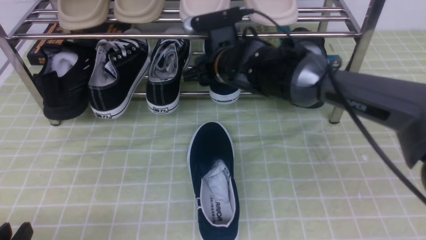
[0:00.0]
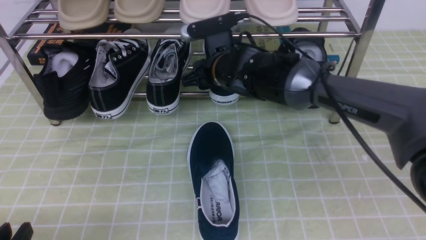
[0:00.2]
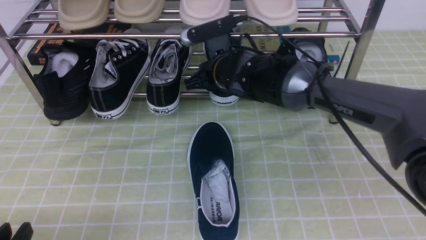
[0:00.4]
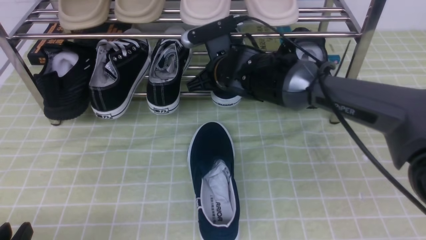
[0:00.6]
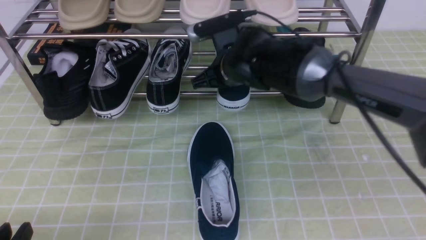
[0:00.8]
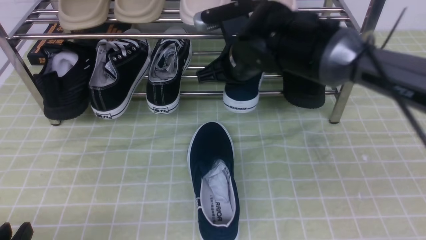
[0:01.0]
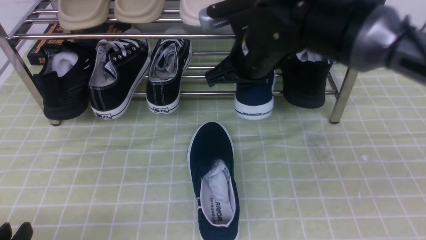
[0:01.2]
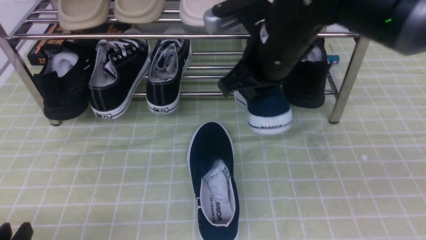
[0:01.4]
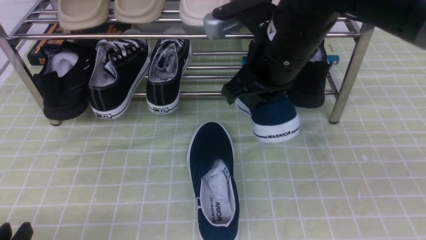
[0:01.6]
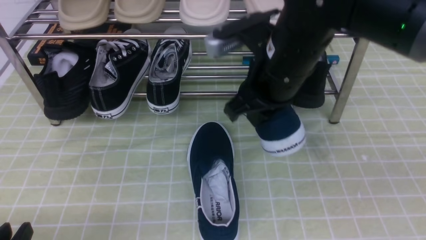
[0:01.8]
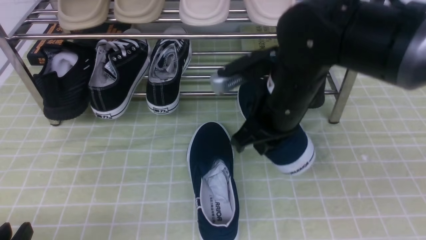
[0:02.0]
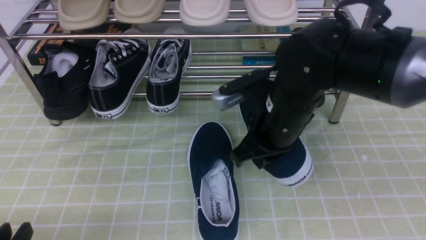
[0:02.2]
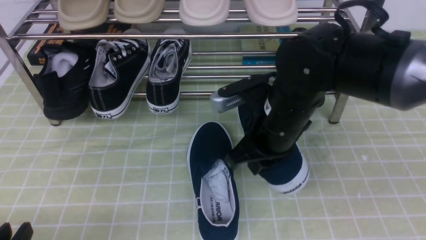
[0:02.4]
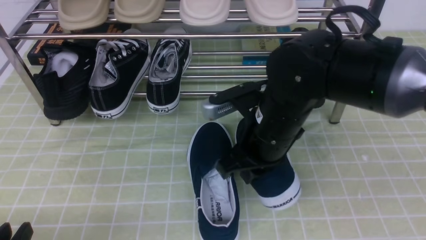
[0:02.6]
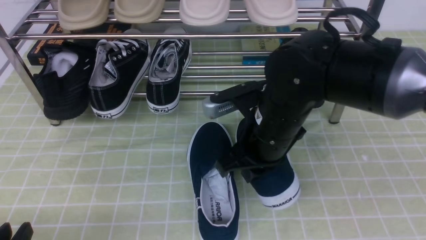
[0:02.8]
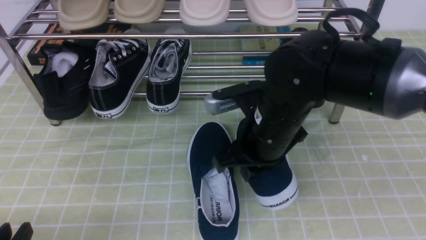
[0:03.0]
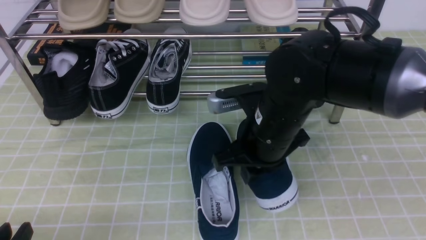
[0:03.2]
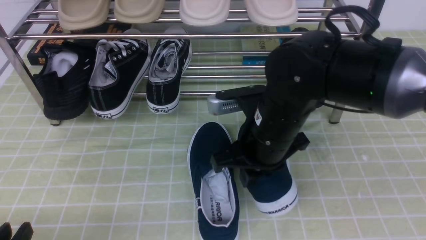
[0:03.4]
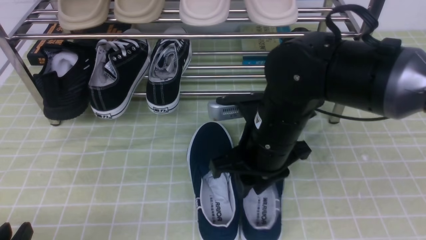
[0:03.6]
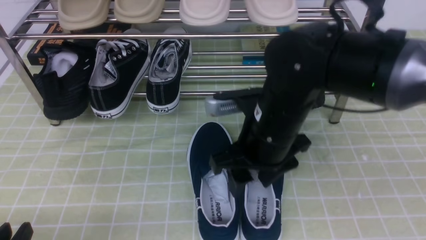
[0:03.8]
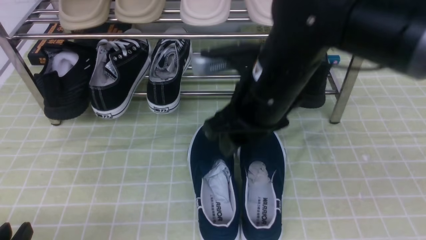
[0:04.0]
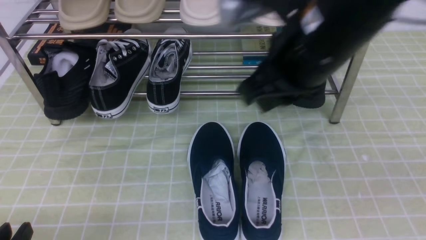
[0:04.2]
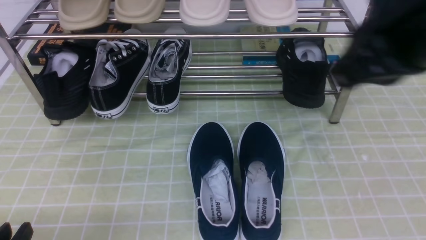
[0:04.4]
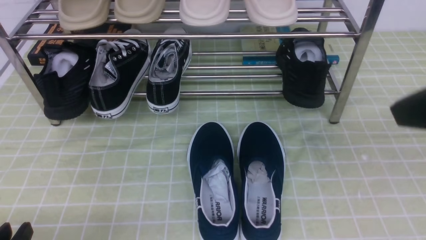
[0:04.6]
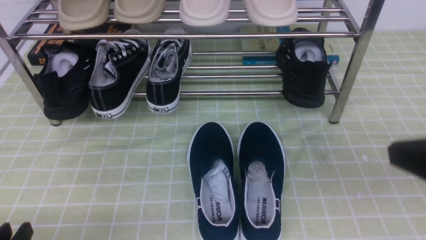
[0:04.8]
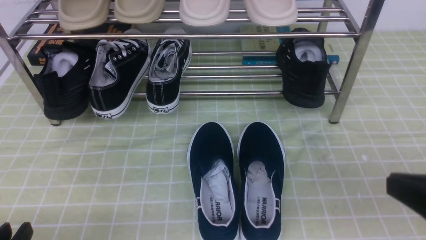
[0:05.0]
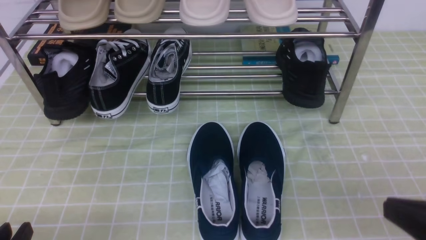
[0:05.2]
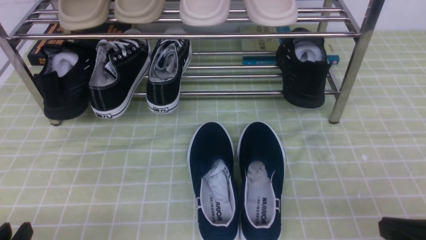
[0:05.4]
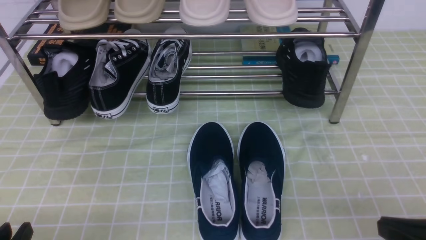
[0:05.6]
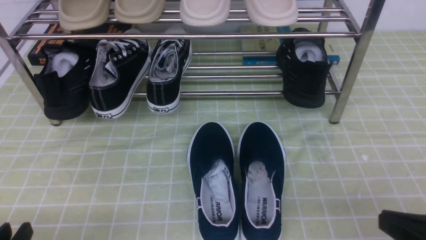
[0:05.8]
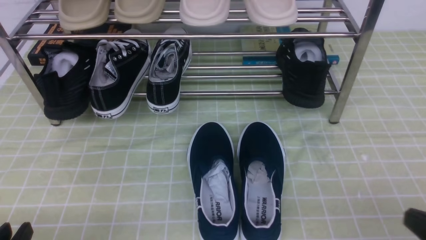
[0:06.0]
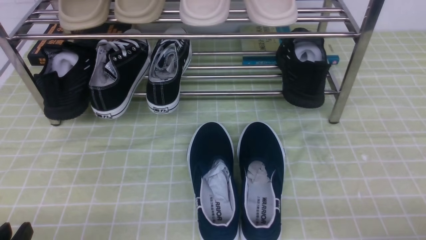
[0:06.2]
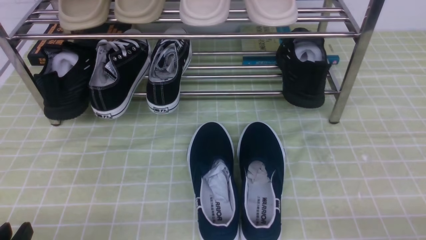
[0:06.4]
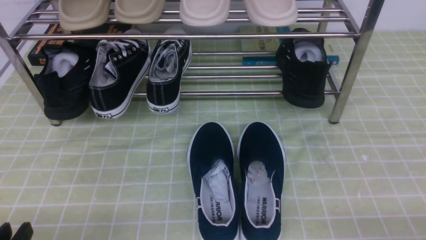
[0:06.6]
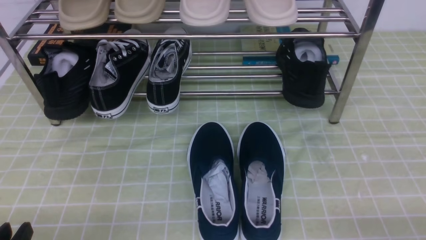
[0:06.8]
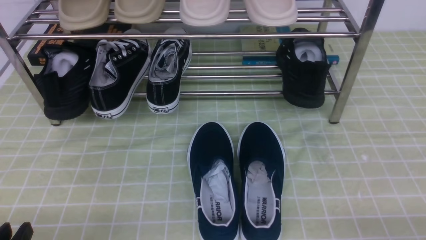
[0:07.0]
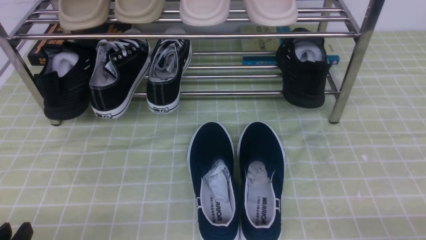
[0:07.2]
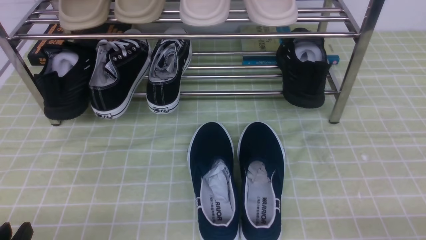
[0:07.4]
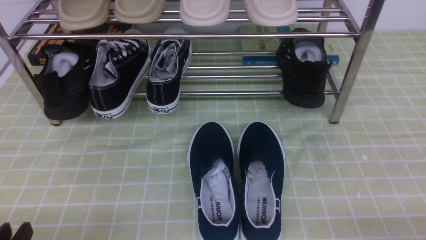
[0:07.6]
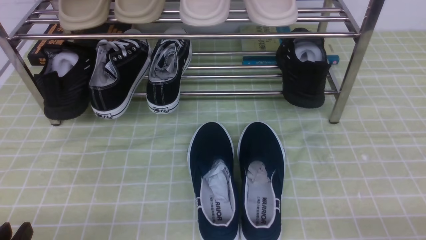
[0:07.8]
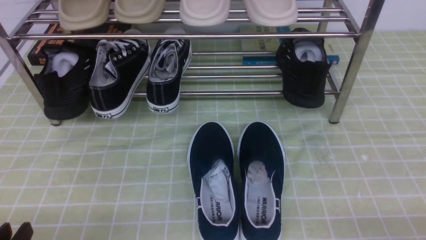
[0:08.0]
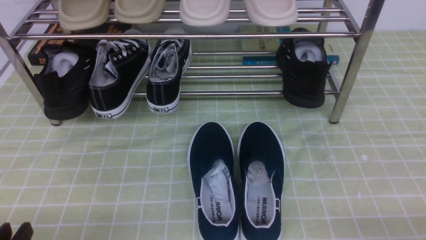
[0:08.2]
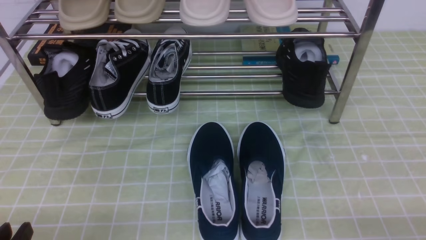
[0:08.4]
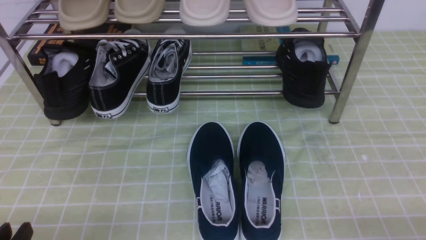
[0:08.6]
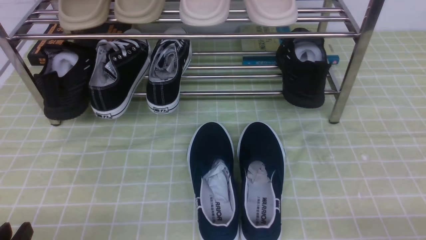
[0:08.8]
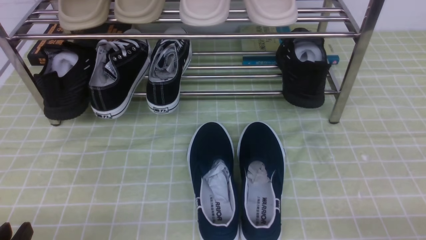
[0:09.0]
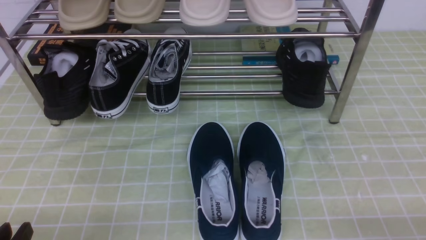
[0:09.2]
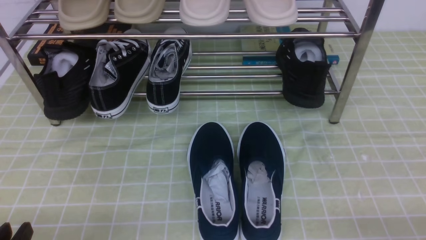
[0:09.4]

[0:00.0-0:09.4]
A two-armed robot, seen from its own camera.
Step, 0:01.0 to 0:04.2: use the right arm to take out the clamped shoe from the shoe rack and put it down.
0:00.0 to 0:01.6: The right gripper goes about 15 cm backward, upward and to the right, and closes up.
0:01.6 to 0:03.2: The right gripper shifts roughly 10 cm downward.
0:03.2 to 0:04.8: The right gripper goes some 25 cm to the right, backward and upward, and opens, then closes again.
0:04.8 to 0:06.2: The right gripper is displaced downward and to the right by some 20 cm.
0:07.8 to 0:09.4: Both grippers stay put.

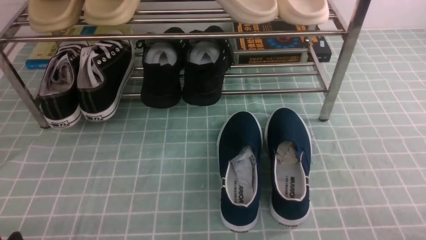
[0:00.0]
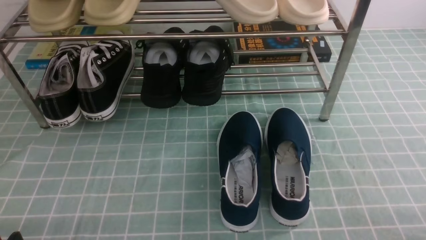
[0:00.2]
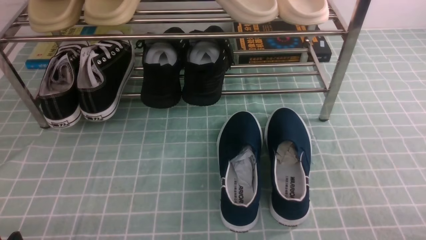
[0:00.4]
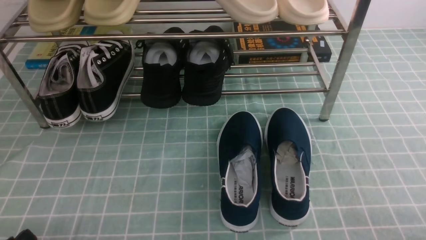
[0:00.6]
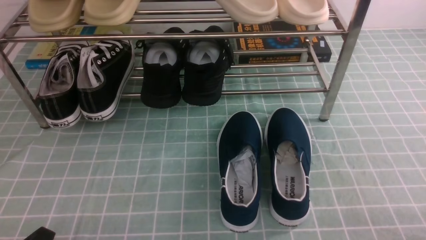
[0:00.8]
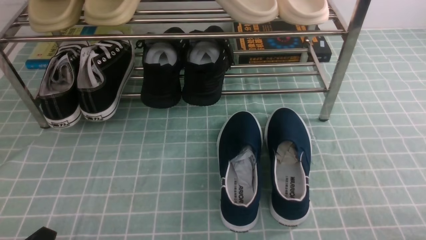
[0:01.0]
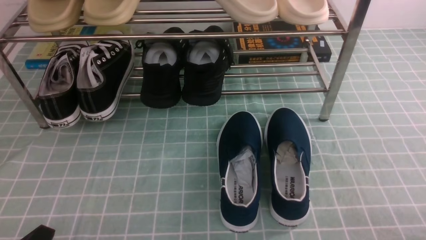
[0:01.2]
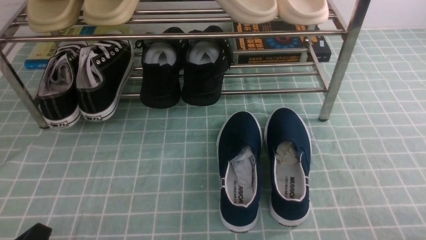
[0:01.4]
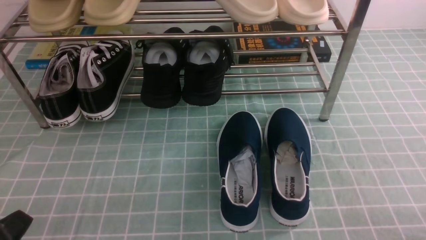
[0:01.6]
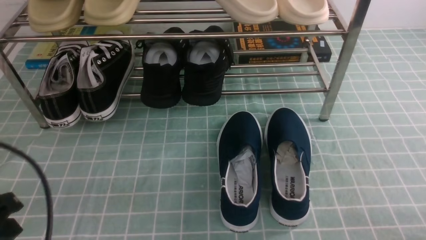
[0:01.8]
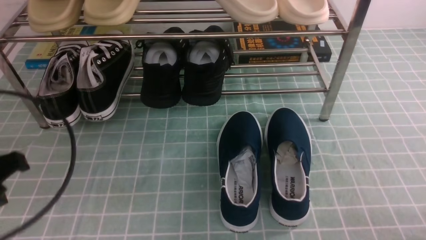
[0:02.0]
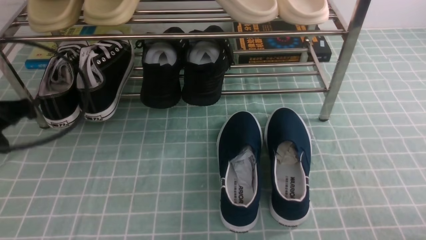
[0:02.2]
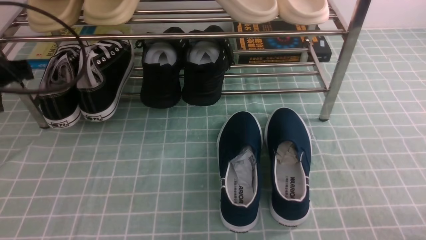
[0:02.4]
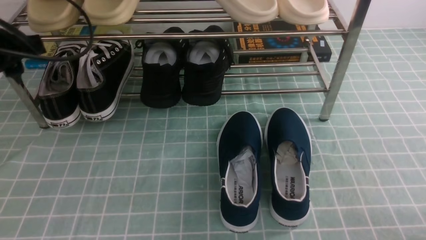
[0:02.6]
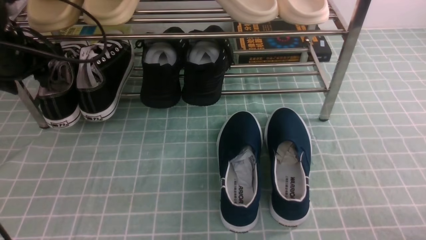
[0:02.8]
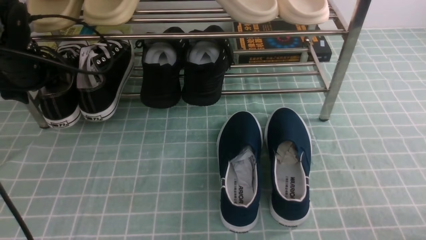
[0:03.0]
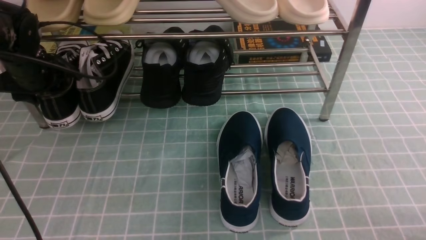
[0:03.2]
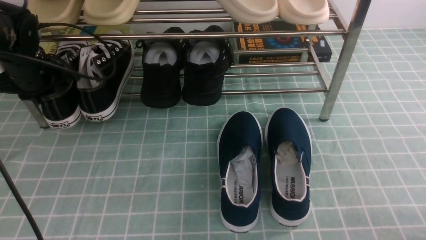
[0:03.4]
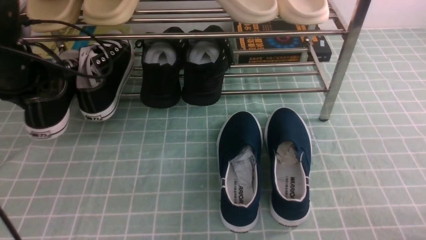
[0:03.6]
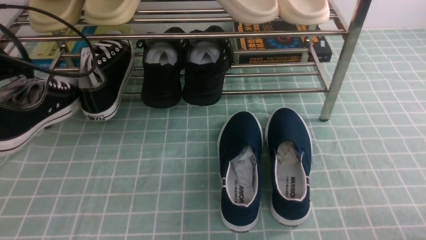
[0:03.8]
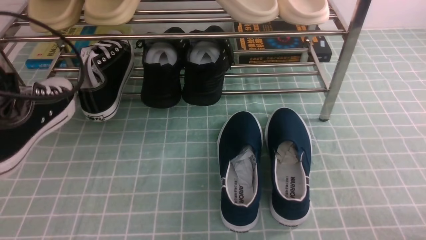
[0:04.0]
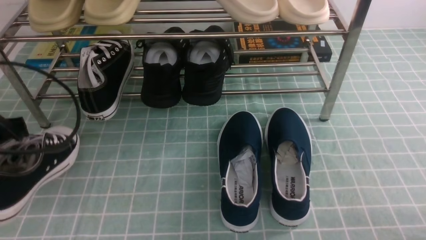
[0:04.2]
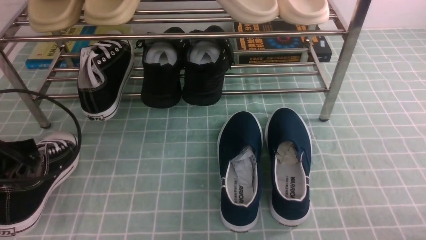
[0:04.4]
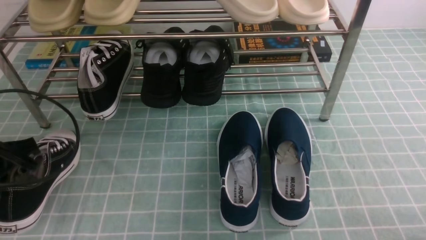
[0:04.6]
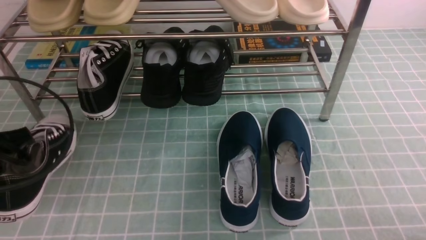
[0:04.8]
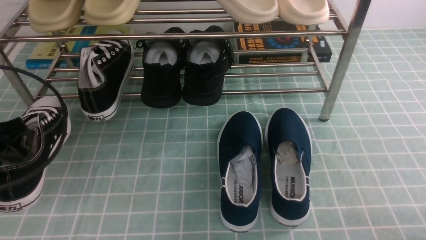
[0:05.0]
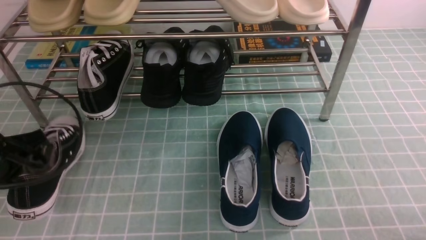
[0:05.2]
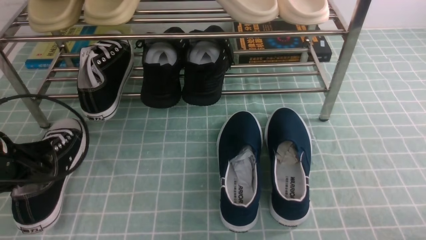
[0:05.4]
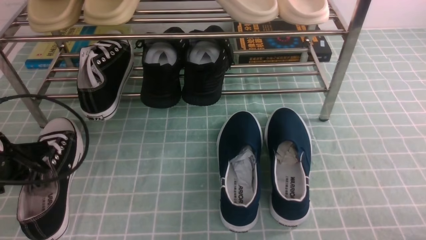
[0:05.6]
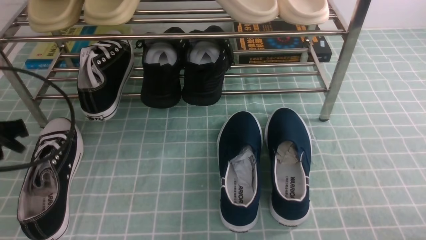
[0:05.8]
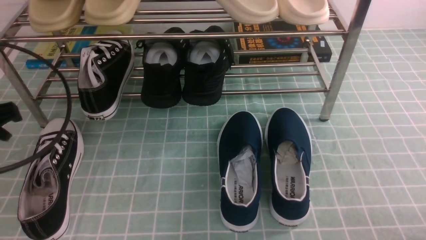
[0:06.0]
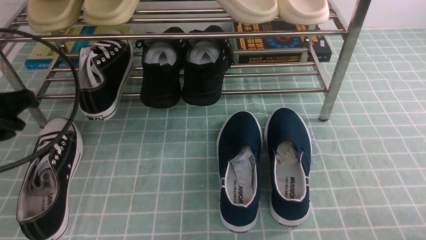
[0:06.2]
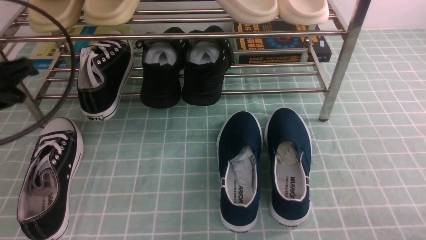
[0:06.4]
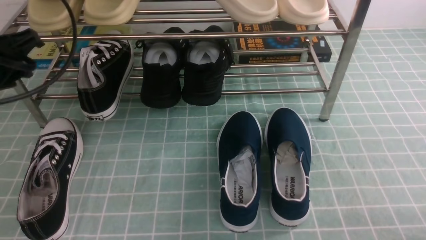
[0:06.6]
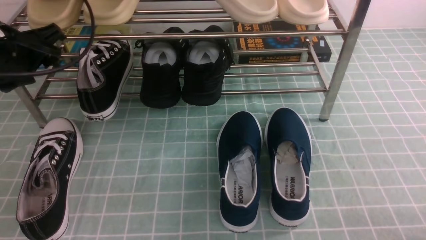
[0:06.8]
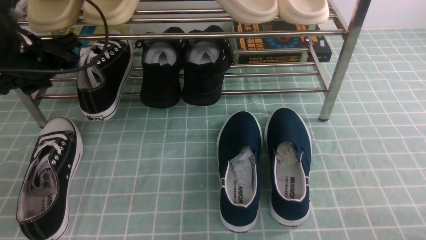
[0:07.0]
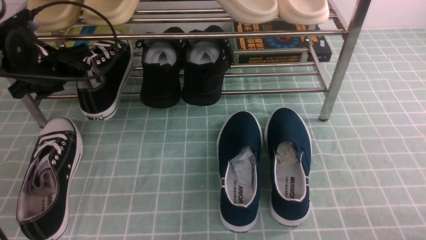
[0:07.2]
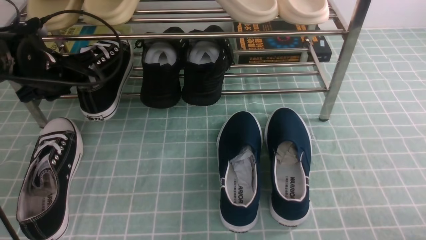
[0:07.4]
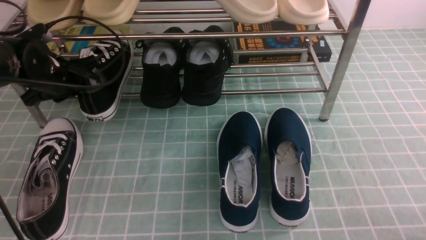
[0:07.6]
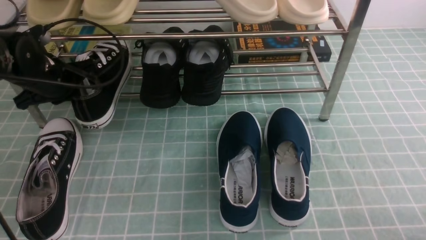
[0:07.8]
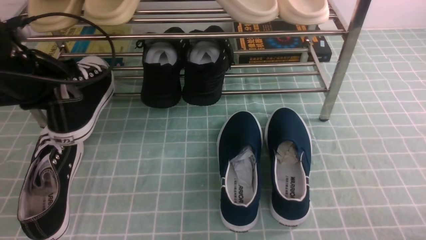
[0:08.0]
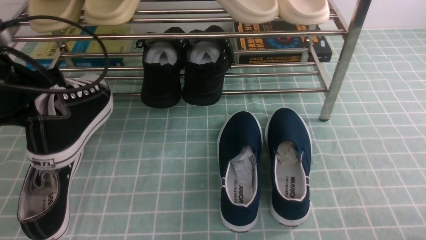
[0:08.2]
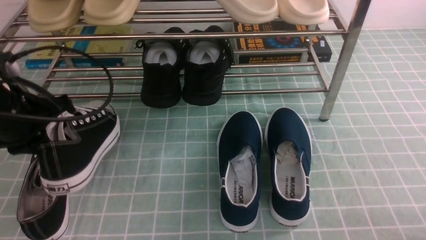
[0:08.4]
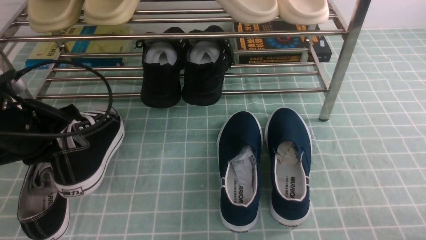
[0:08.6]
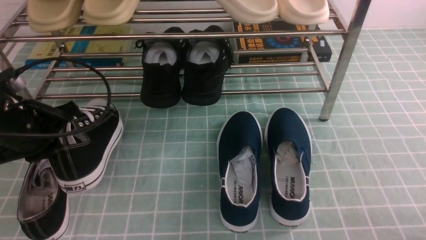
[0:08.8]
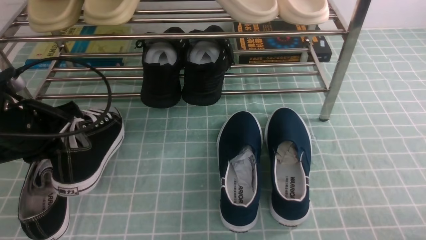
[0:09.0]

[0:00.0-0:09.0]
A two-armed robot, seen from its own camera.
Step, 0:00.0 to 0:03.4: use the left arm to clamp a shoe on the left side of the shoe rack.
Step, 0:03.6 to 0:05.8: Use your left arm to remove the clamped shoe from the shoe rack and put it down.
Step, 0:06.0 to 0:07.4: use the left arm to clamp a shoe on the left side of the shoe rack.
0:00.0 to 0:01.6: The left gripper heads upward, covering approximately 5 cm, and closes its fingers.
0:01.6 to 0:03.0: The left gripper heads forward, covering about 35 cm, and opens its fingers.
0:03.0 to 0:04.4: The left gripper is displaced backward by roughly 15 cm, and closes up.
0:04.4 to 0:06.0: The left gripper shifts by about 5 cm.
0:06.0 to 0:07.6: The left gripper goes some 20 cm forward and downward, and opens, then closes once more.
0:07.6 to 0:09.0: The left gripper heads backward, covering some 10 cm.
